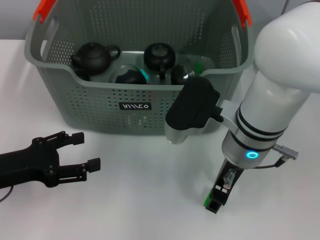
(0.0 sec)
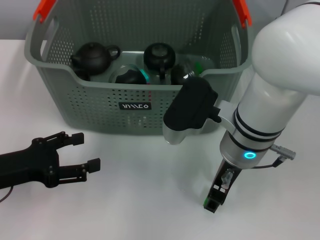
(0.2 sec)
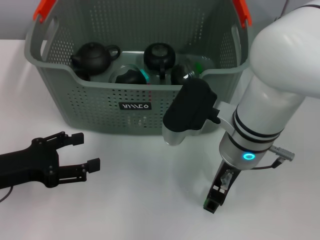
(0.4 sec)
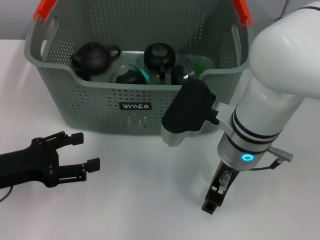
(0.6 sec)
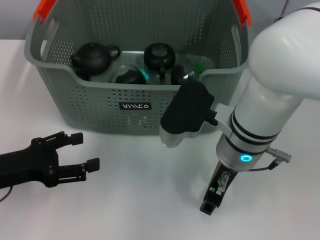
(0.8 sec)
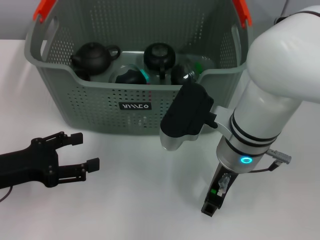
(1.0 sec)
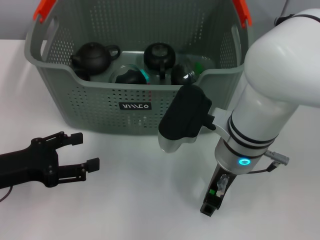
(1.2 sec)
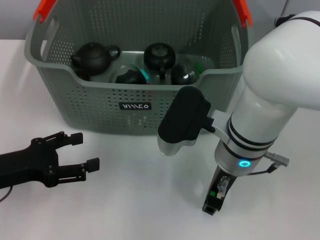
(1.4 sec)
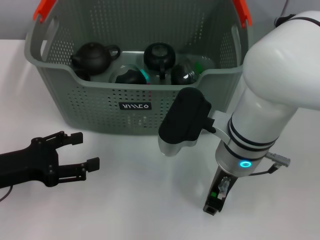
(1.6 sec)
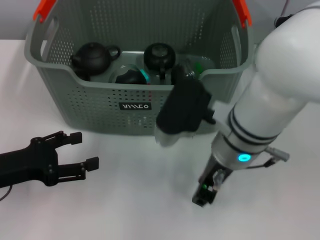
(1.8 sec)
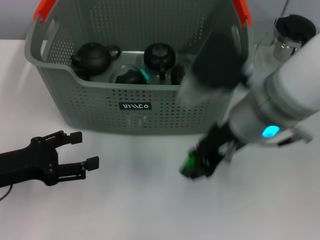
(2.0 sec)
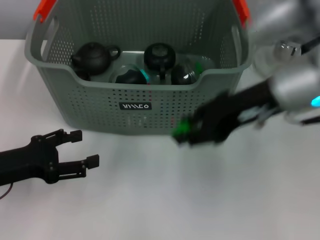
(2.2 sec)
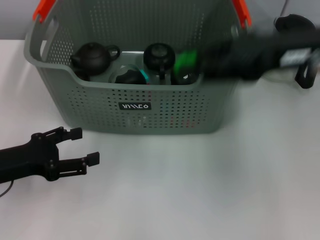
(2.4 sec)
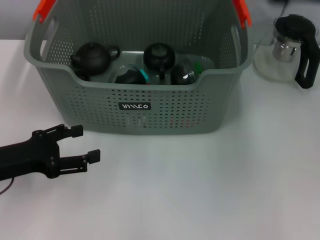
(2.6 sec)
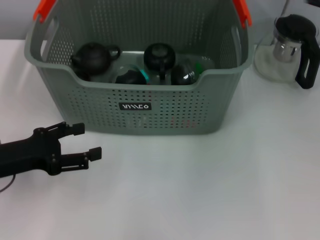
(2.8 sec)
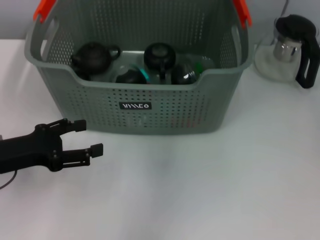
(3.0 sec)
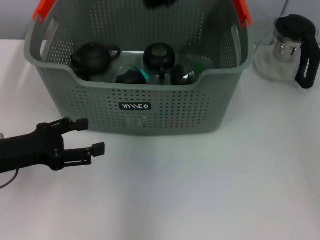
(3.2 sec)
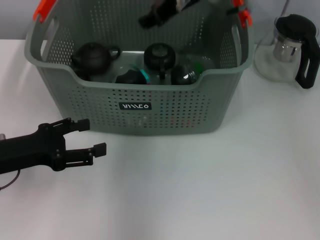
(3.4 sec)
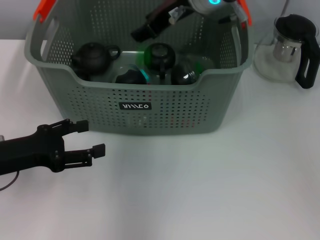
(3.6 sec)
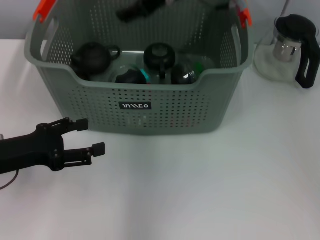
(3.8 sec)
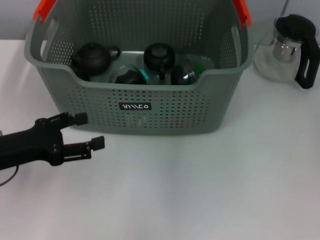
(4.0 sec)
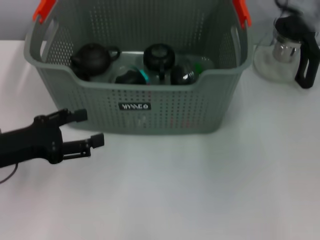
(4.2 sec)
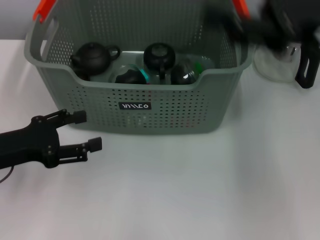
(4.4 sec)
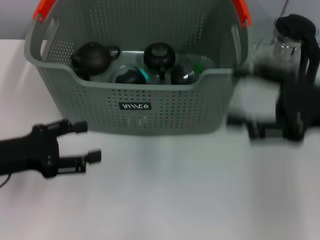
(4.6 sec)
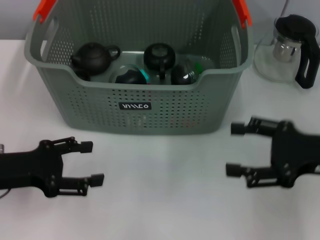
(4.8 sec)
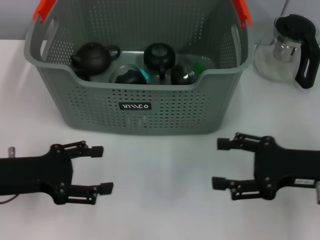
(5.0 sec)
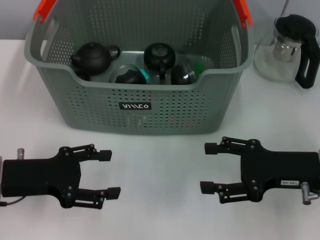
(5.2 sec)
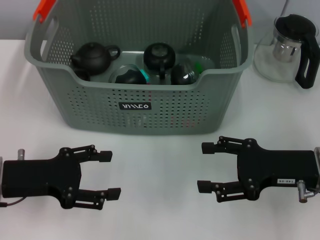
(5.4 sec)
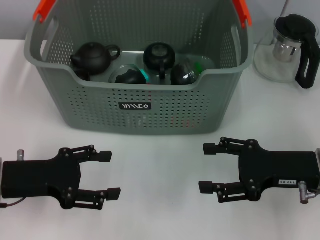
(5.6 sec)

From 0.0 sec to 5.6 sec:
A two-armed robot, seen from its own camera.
Task of the whole recording: pick up the teacup on the table and place it into the storage bin, pick up the block on the table and place it into the storage bin.
Step, from 1.8 sec to 3.6 sec: Place the green block in the storage box with right gripper.
From 0.0 sec to 1.4 sec: The grippers make only small movements.
From 1.4 sec to 2.8 sec: The right gripper is displaced upward, to the right and forward by about 20 cm.
From 2.8 sec to 4.2 sec: The right gripper travels to the left and back again, some 15 cm each way, and opens its fingers.
From 4.2 sec to 5.6 sec: The right gripper travels downward and backward by roughly 20 cm.
